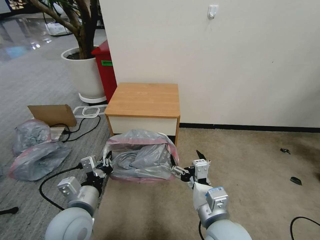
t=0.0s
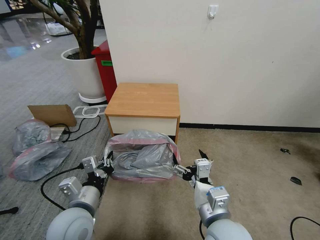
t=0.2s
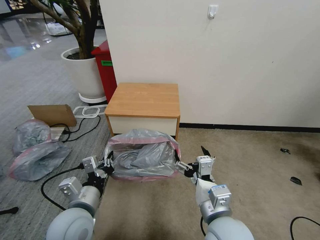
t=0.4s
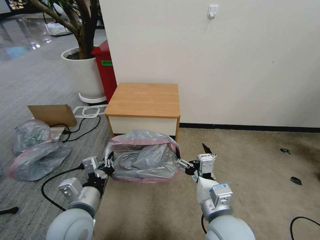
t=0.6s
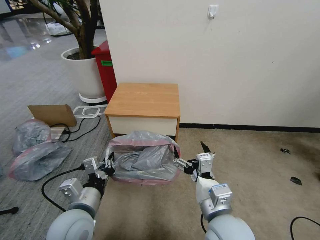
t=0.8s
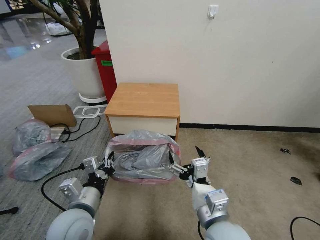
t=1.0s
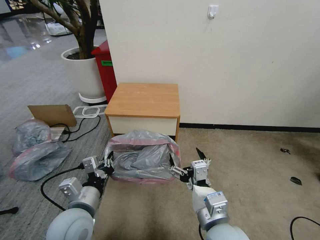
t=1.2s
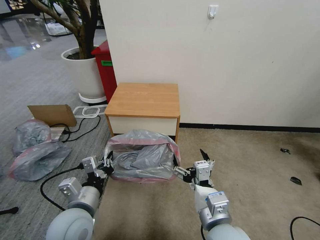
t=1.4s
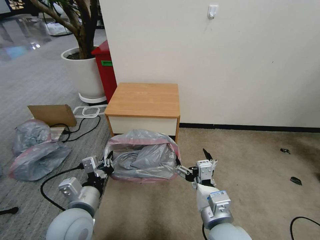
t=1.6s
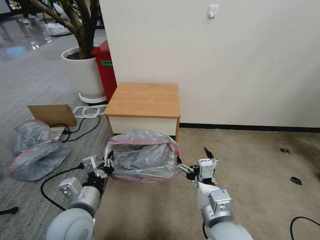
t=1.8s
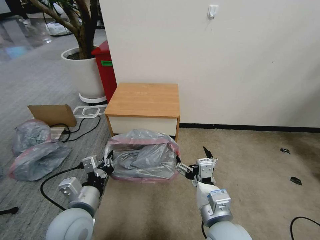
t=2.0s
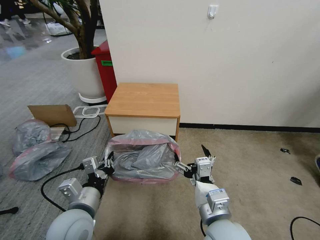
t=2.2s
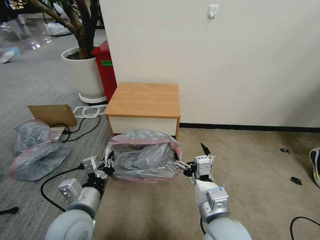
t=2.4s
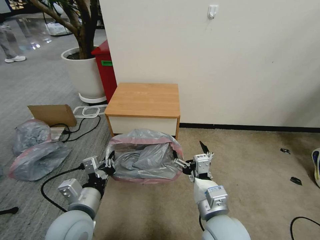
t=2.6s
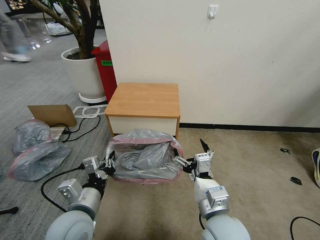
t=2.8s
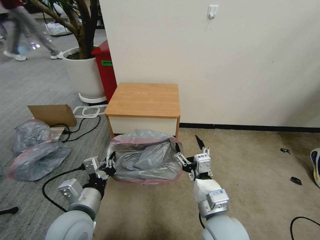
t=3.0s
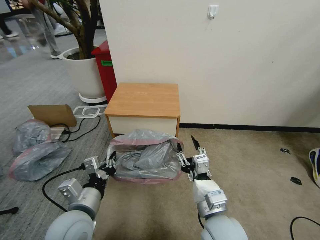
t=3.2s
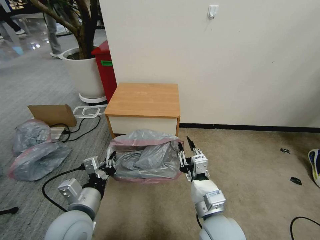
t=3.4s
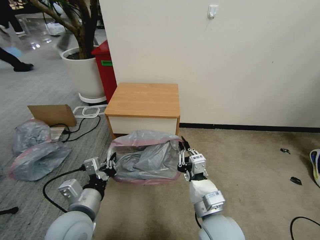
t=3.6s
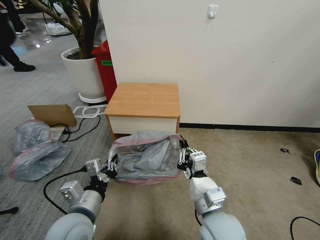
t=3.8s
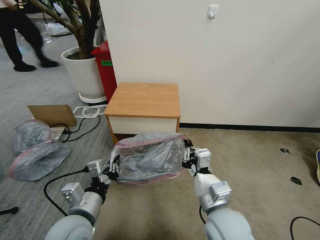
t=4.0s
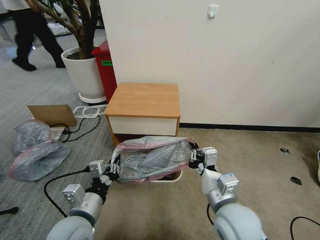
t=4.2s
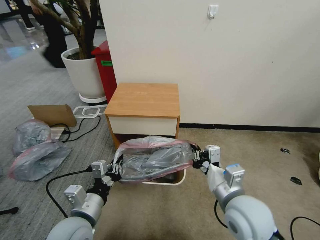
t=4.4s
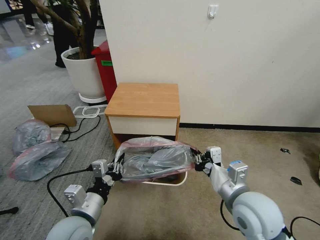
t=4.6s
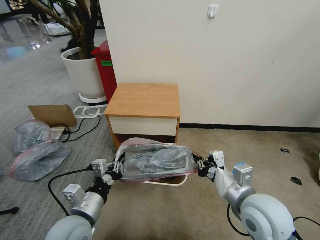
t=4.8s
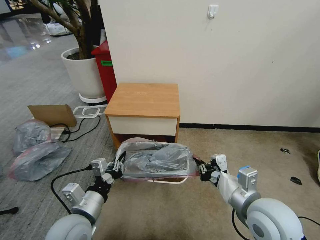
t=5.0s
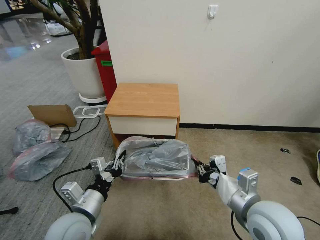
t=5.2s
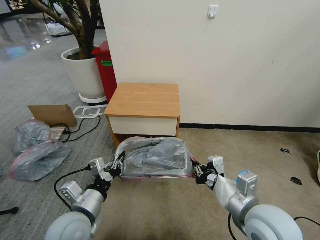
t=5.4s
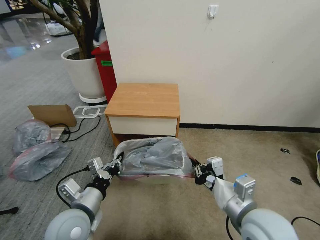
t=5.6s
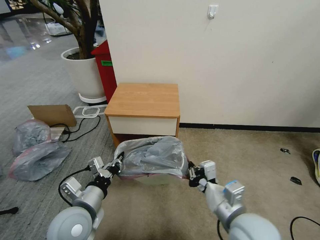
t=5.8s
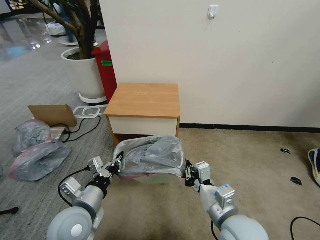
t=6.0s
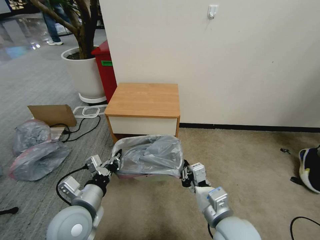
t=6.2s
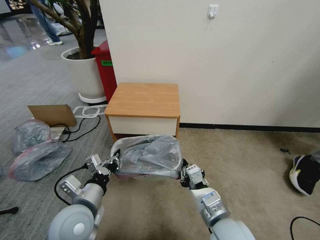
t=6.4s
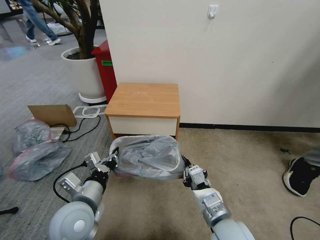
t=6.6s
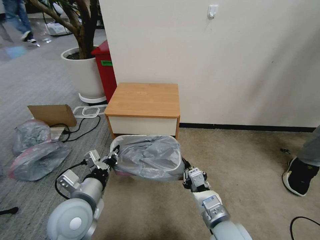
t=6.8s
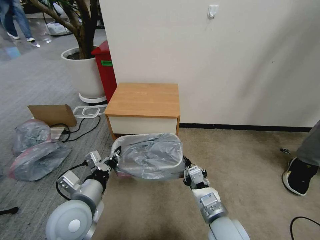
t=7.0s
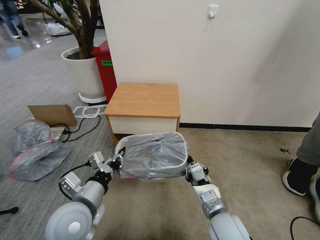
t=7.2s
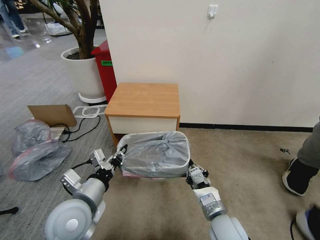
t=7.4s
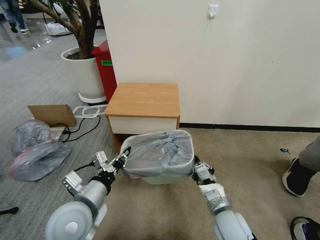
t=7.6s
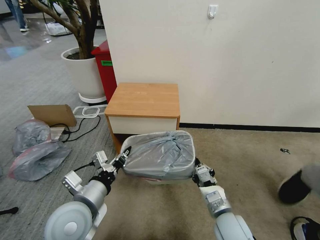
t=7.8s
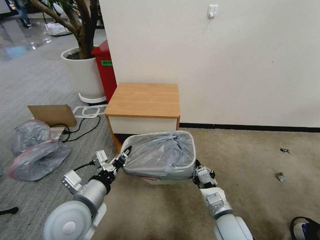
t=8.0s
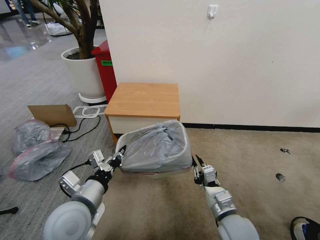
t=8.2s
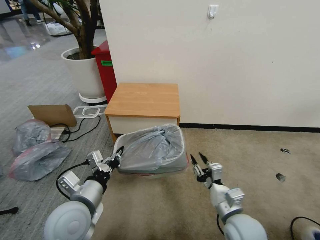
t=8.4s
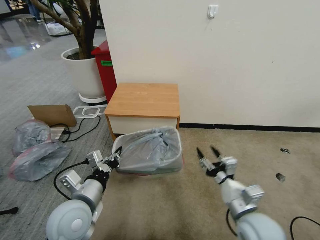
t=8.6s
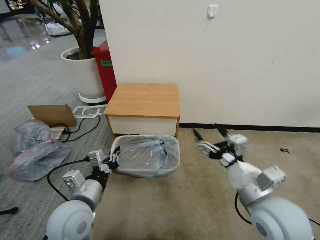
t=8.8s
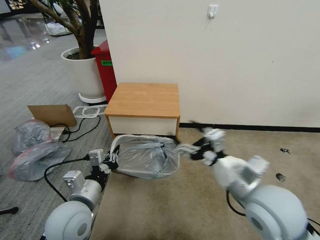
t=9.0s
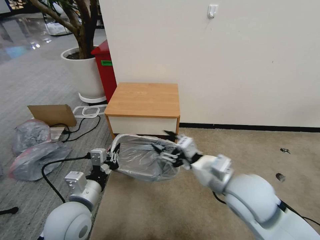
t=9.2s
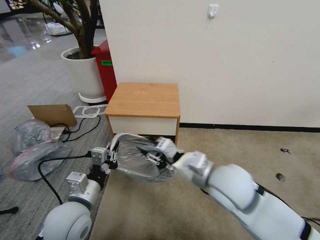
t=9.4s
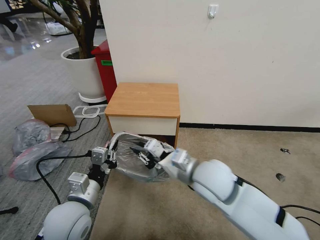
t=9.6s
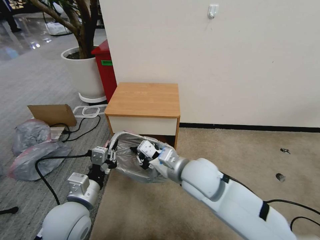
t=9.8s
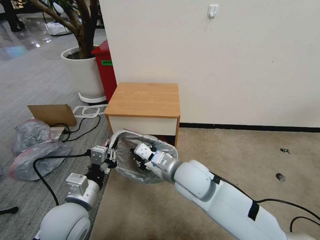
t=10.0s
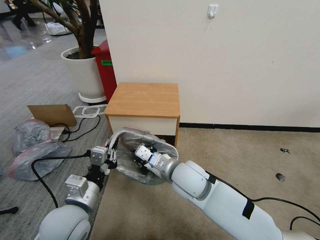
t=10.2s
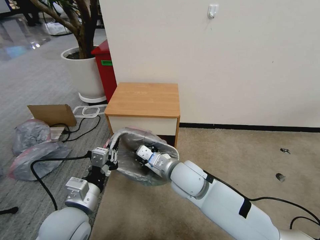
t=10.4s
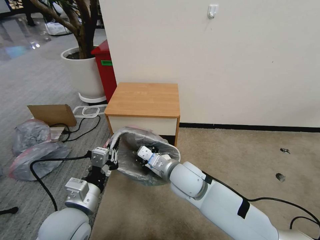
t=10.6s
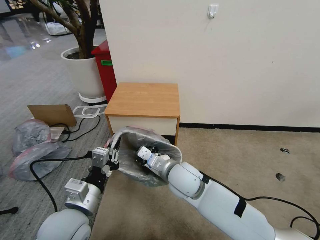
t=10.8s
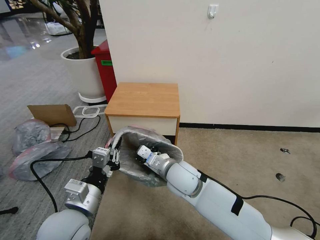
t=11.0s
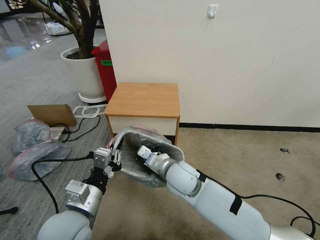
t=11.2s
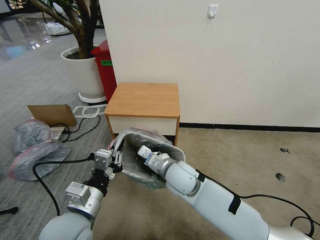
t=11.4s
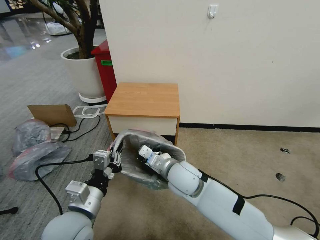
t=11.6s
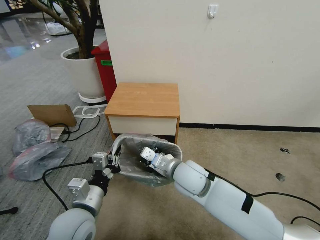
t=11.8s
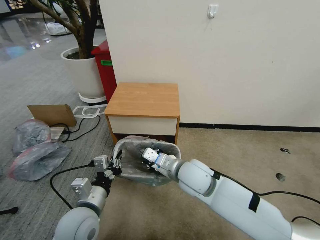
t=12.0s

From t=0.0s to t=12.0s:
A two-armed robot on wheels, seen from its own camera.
Task of the whole recording: Pick up the garbage bag from the table and place it over the trash can.
From t=0.0s to t=3.0s: The grippers stay close to where they were, moving slightly.
From t=3.0s to t=4.4s: The right gripper goes approximately 5 cm to the right, and closes.
From t=4.4s to t=6.0s: The right gripper changes place by about 5 cm.
From t=6.0s to t=7.6s: The right gripper moves downward, about 10 cm.
From t=7.6s to t=9.0s: The right gripper travels upward by about 20 cm, and opens its fingers.
From t=9.0s to t=10.4s: The right gripper shifts some 20 cm to the left, forward and downward, and closes.

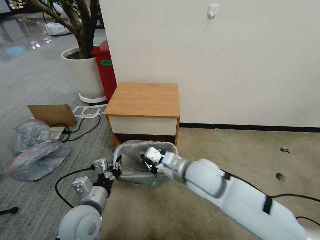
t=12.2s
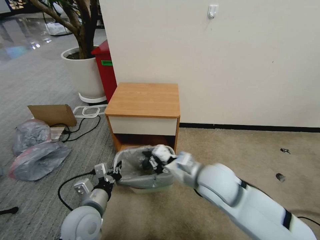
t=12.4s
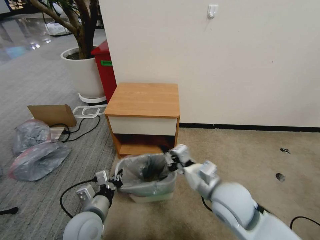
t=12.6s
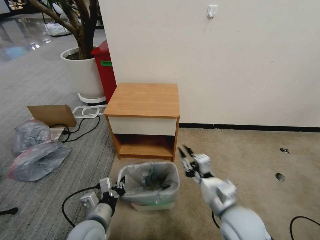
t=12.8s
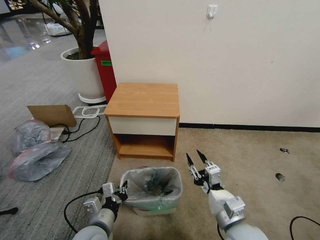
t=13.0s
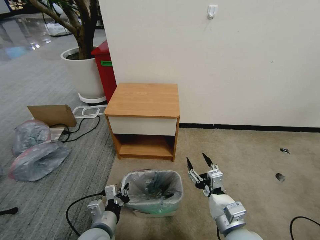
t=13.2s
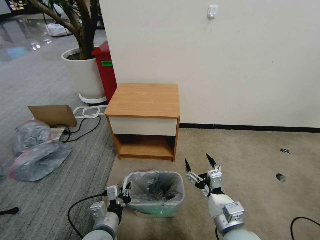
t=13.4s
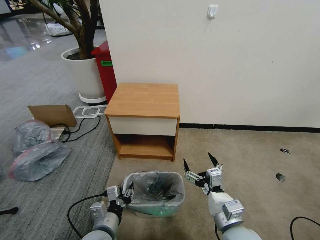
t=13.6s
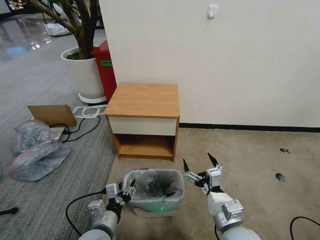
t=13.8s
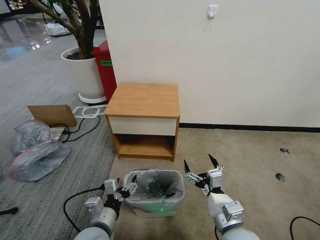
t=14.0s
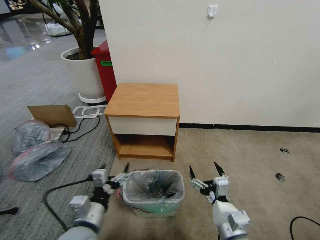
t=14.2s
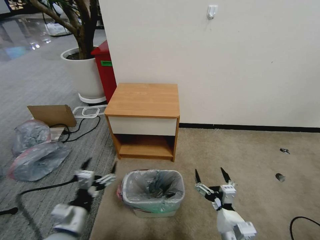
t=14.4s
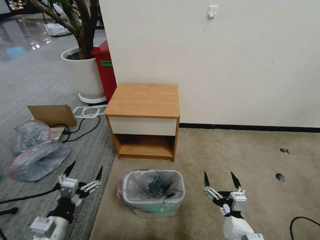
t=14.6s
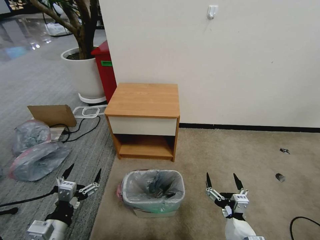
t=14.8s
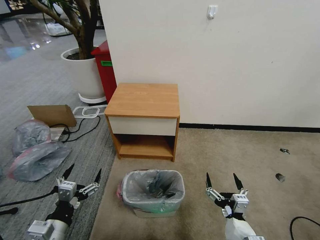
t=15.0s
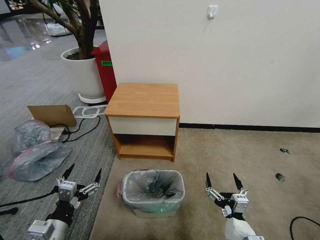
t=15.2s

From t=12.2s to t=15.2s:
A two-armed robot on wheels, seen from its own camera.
Task of the whole recording: Pick up the garbage bag from the table and place it over the trash can.
From t=12.2s to t=13.8s: The right gripper goes some 20 cm backward, downward and to the right, and opens its fingers, while the left gripper is displaced downward by approximately 5 cm, and opens its fingers.
From t=13.8s to t=15.2s: The right gripper heads backward and downward, covering approximately 10 cm. The left gripper travels to the left by about 10 cm, and opens.

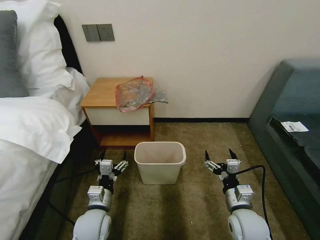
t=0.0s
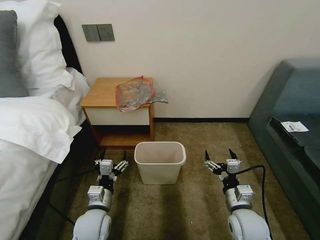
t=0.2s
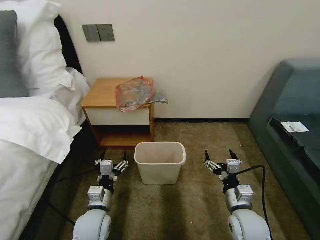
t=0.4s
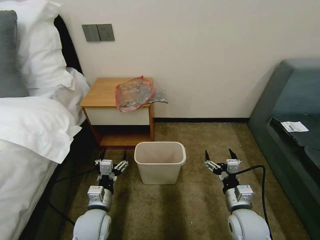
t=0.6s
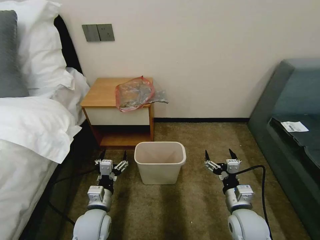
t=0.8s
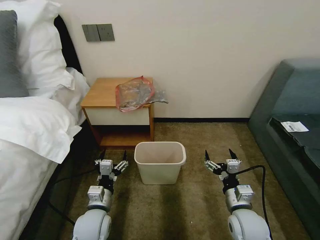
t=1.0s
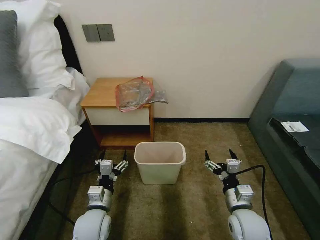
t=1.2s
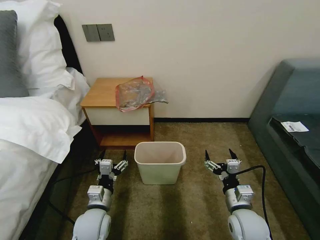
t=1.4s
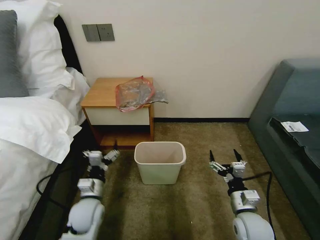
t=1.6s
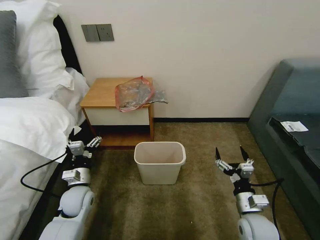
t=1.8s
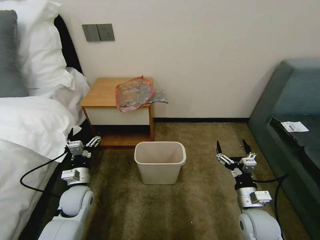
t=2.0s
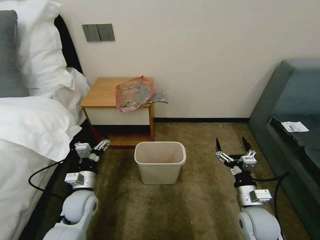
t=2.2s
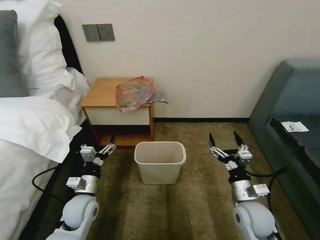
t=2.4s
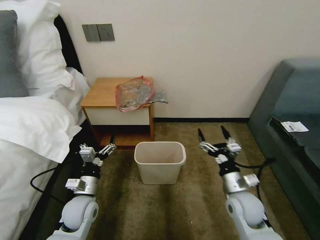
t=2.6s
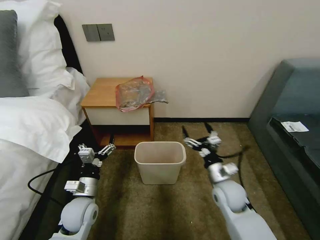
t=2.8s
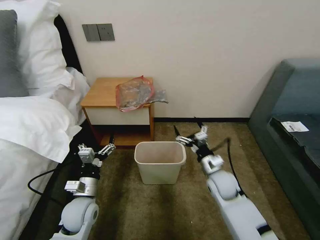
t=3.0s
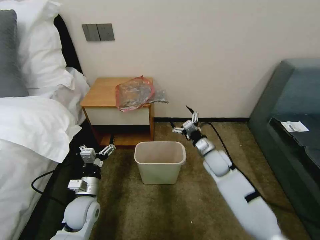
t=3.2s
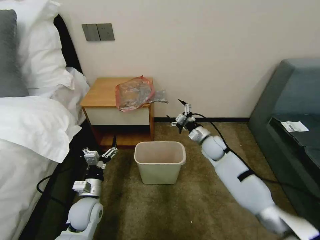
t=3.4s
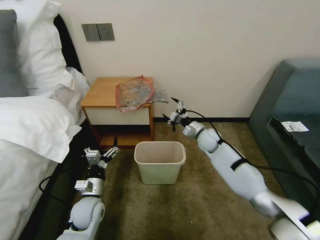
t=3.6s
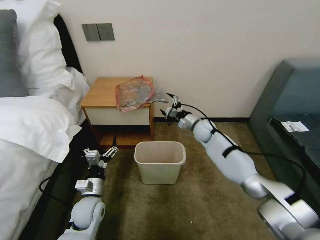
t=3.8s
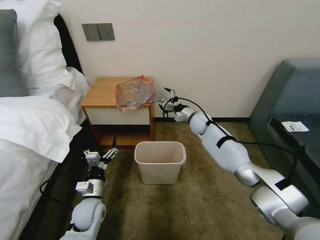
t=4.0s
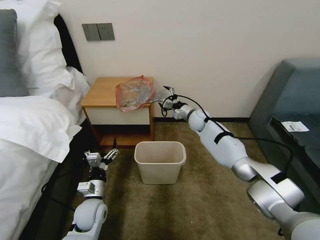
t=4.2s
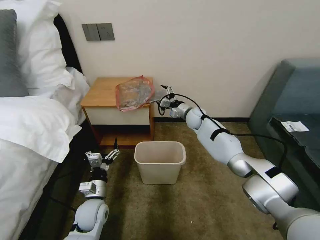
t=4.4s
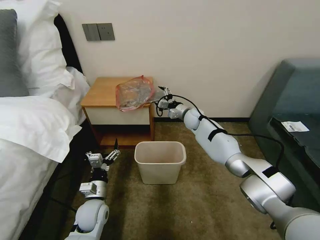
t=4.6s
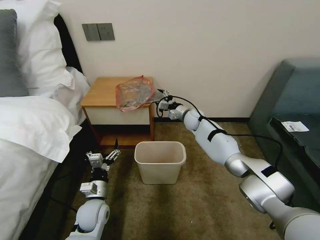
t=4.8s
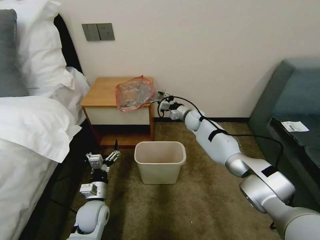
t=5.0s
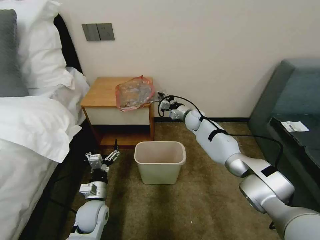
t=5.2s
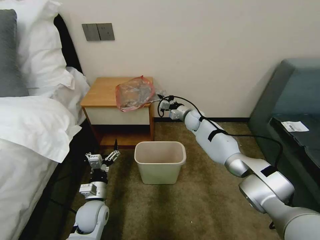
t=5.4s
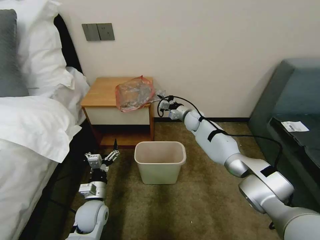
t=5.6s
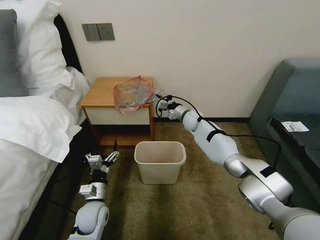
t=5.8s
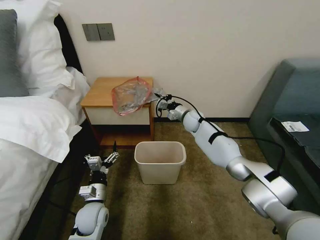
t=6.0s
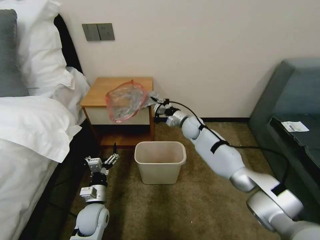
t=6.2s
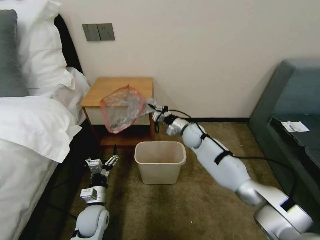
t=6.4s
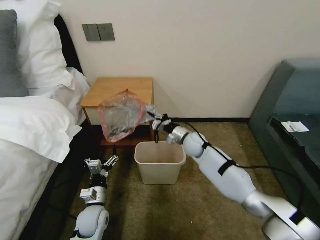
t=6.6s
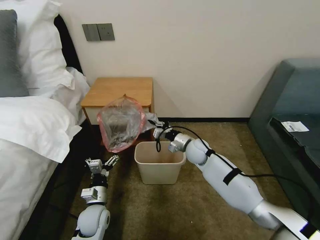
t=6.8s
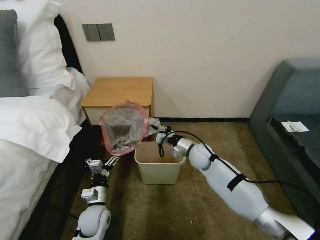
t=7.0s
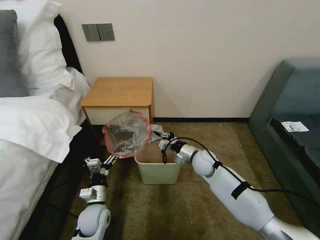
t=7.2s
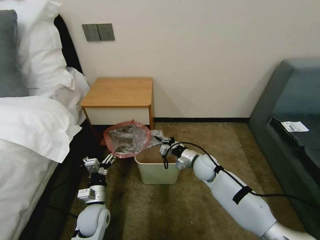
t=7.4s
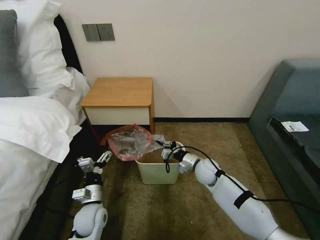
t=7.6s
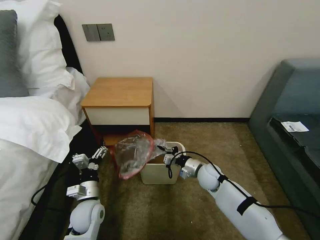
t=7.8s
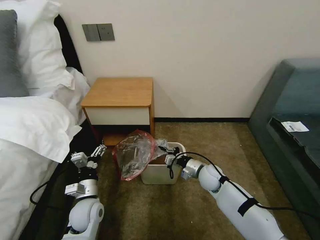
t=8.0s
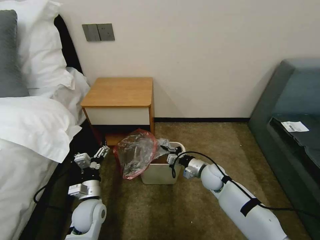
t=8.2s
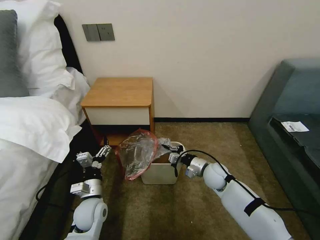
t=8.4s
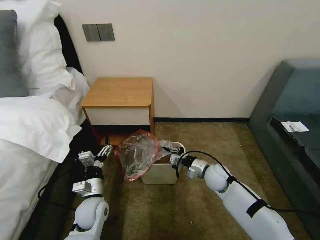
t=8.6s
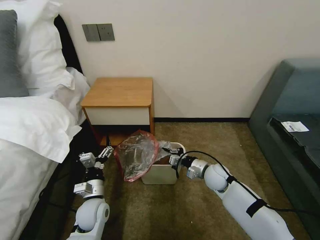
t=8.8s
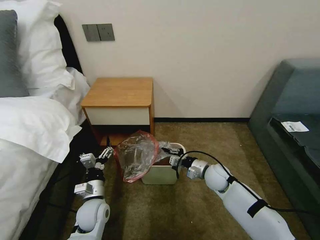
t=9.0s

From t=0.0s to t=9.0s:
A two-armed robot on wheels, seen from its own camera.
Task of the whole recording: Pick up the garbage bag from the table and place it over the trash can.
From t=1.6s to t=3.0s: The right gripper is displaced forward by some 15 cm.
From t=3.0s to t=4.4s: The right gripper shifts roughly 25 cm forward; the left gripper changes place by roughly 5 cm.
From t=4.4s to t=6.0s: The right gripper closes.
From t=6.0s to t=7.6s: The right gripper shifts approximately 20 cm backward and downward.
From t=7.6s to t=9.0s: The grippers move only a little.
